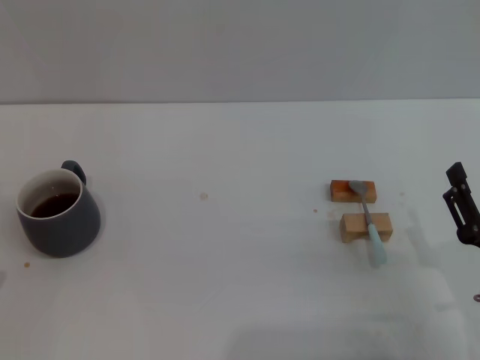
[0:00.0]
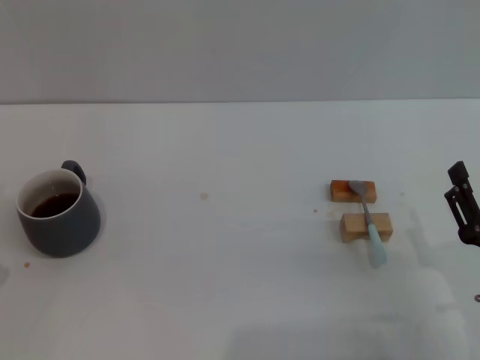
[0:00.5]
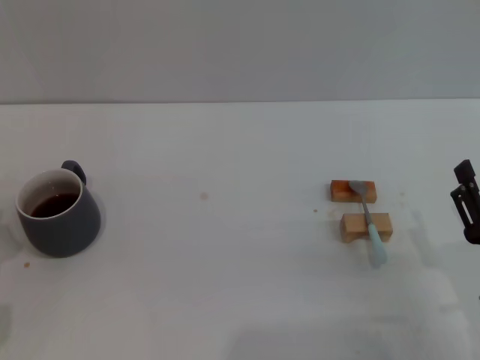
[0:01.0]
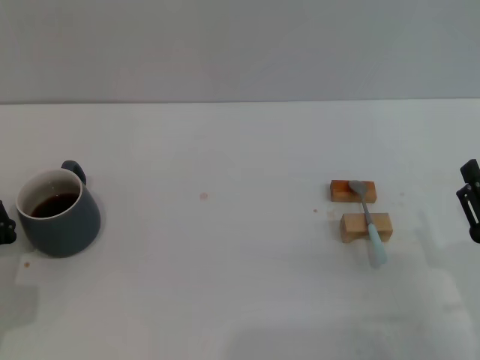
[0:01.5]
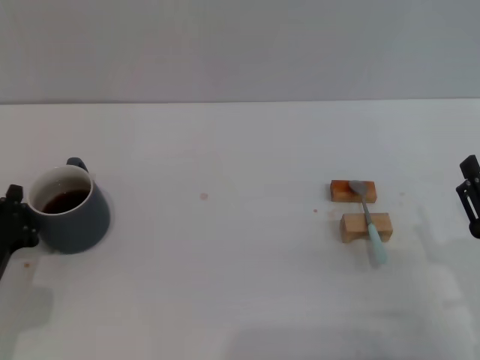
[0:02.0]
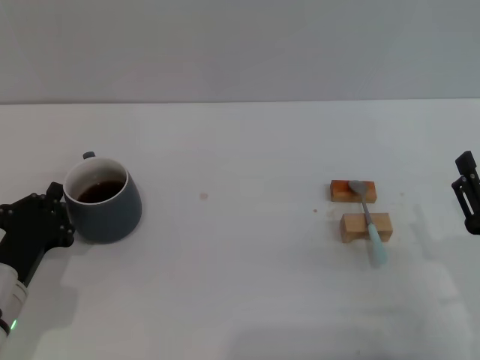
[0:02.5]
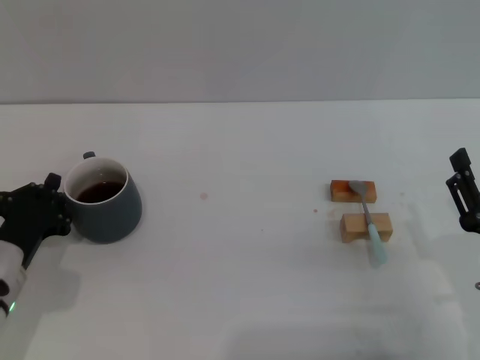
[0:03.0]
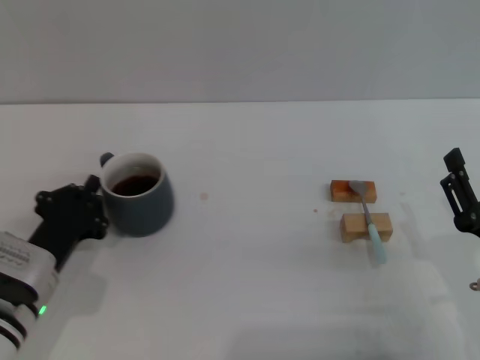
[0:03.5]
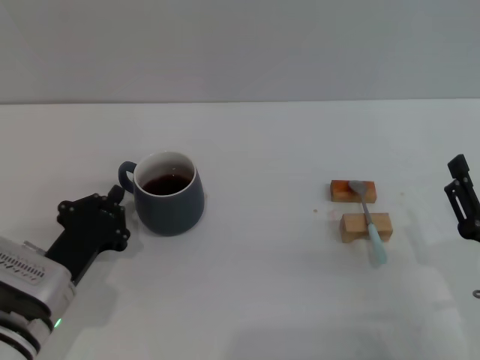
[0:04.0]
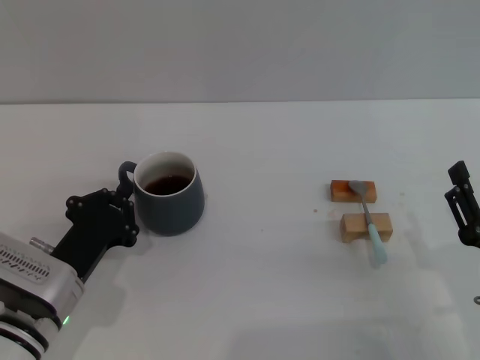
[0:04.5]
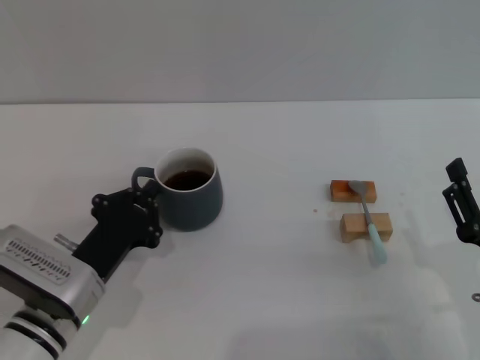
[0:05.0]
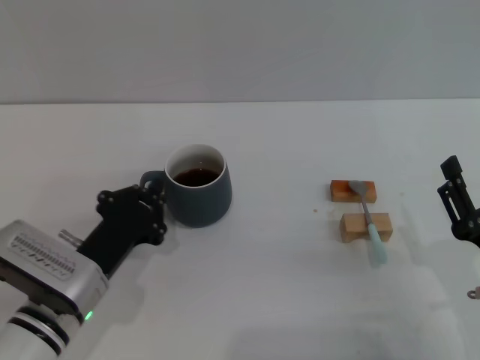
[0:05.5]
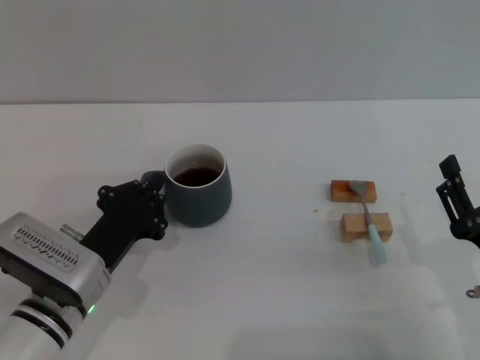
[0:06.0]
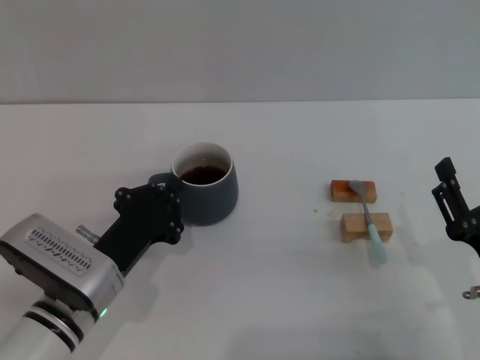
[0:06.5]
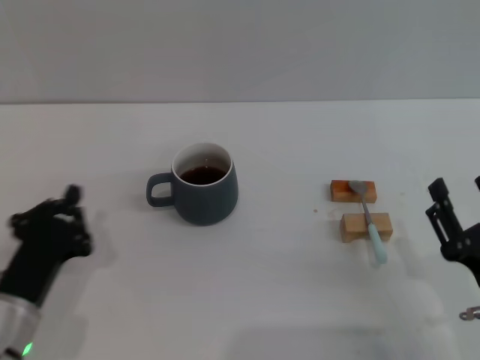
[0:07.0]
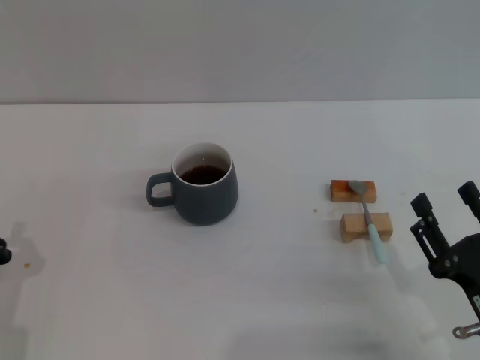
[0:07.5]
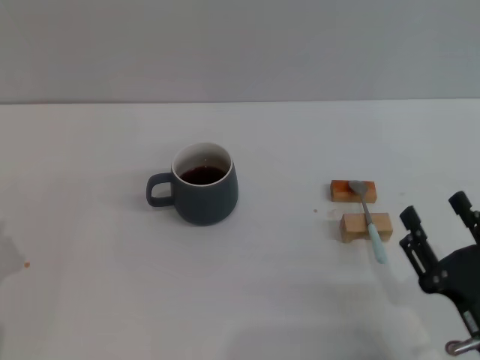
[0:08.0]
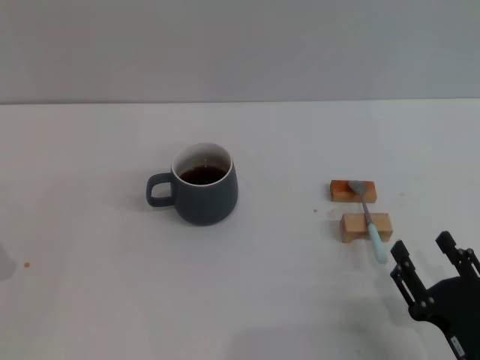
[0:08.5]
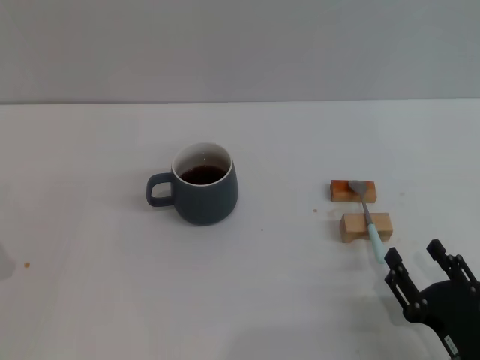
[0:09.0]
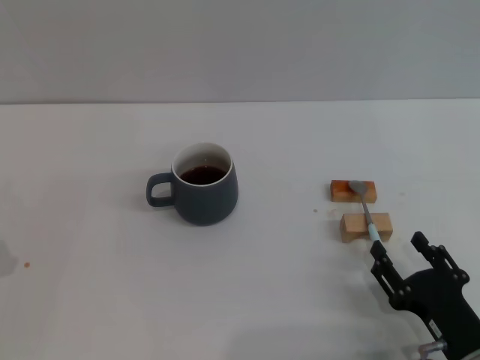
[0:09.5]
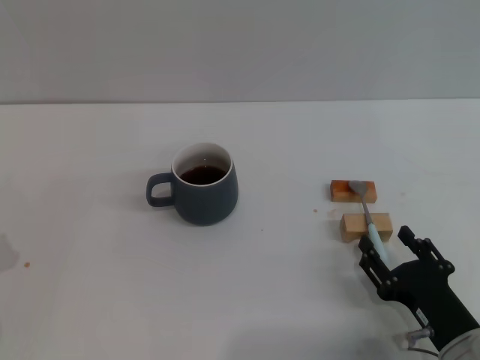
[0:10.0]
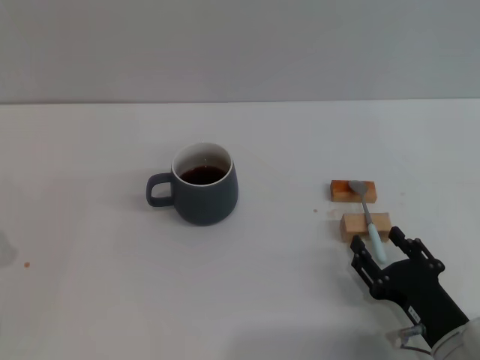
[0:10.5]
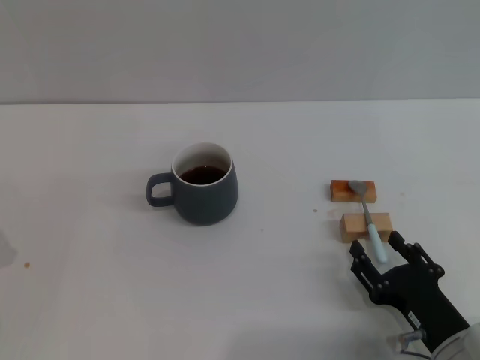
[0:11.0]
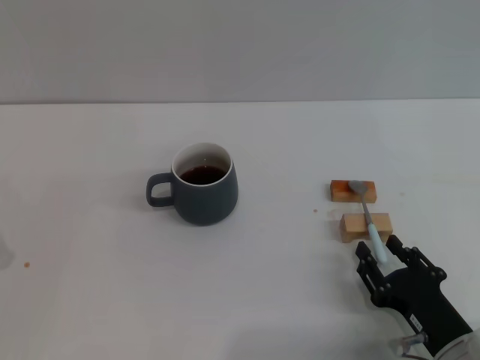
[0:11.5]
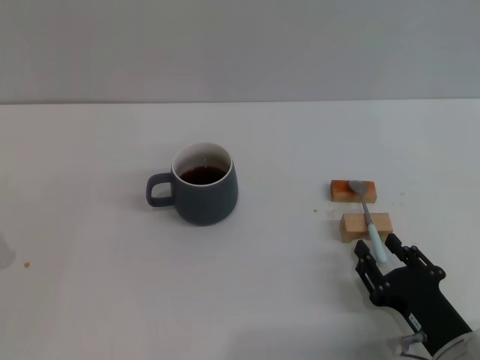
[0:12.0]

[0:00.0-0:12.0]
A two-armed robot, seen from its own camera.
Task of the whole recording: Move the grey cup to the center, lift the blue spoon, stir it three times in the cup, and put the spoon into the cup.
Step, 0:00.0 to 0:07.0: Move the cup with coffee to the center of view with the left gripper.
0:00.0 to 0:02.0: The left gripper shifts about 5 cm forward.
0:02.0 to 0:04.0: The left gripper travels to the right by approximately 5 cm.
0:04.0 to 0:06.0: There are only small adjustments of the grippers.
0:06.0 to 0:08.0: The left gripper is displaced to the left and backward by some 15 cm.
0:10.0 to 0:12.0: Both grippers stay put.

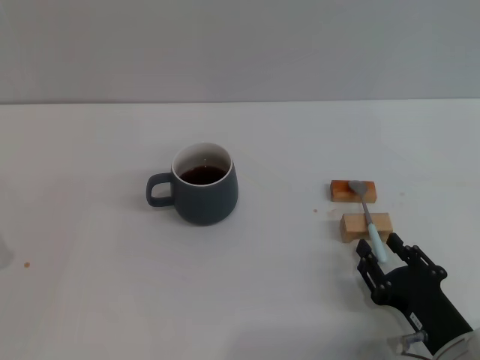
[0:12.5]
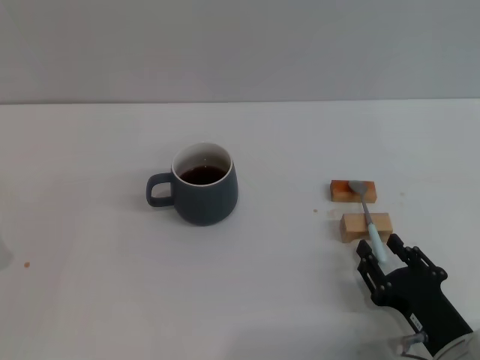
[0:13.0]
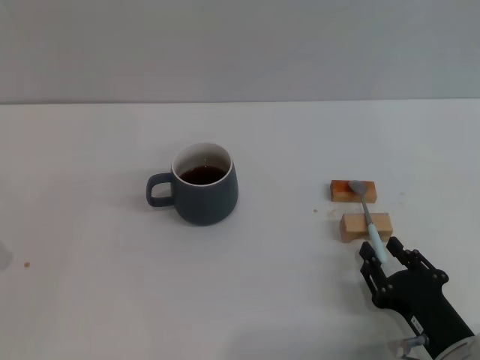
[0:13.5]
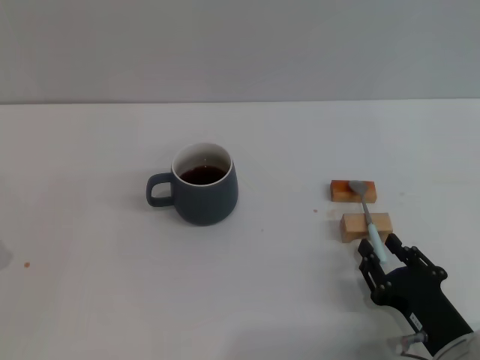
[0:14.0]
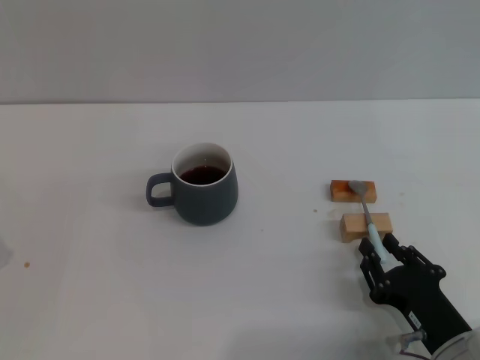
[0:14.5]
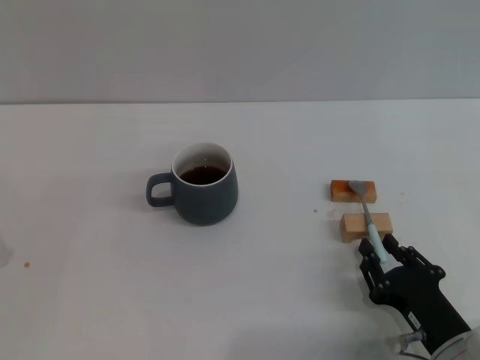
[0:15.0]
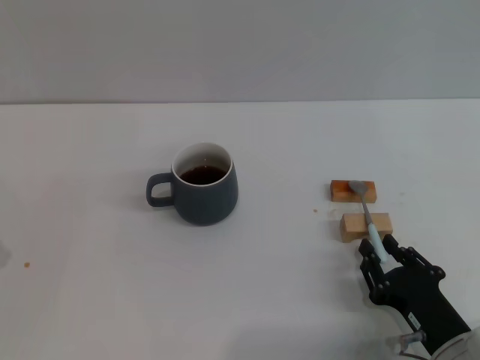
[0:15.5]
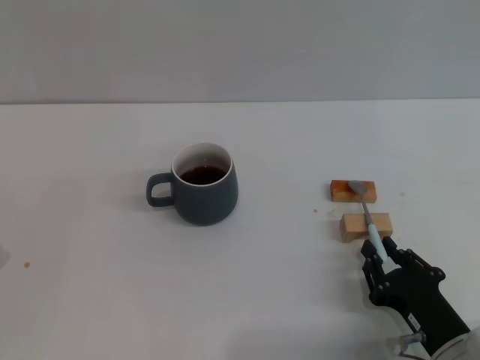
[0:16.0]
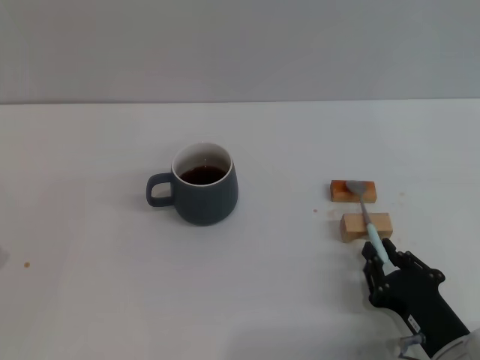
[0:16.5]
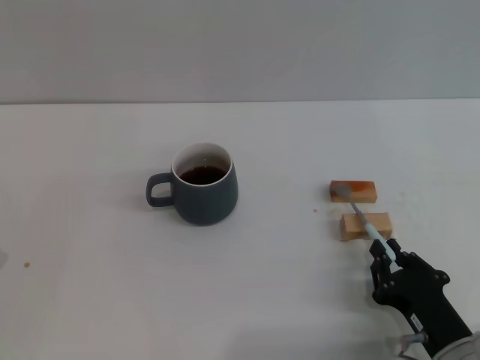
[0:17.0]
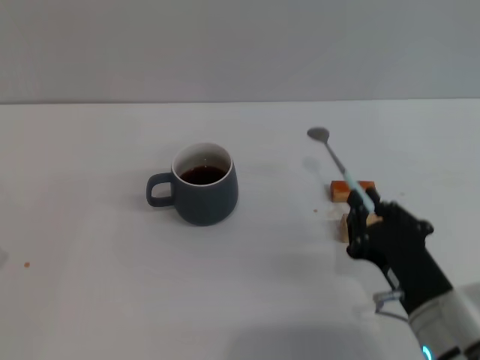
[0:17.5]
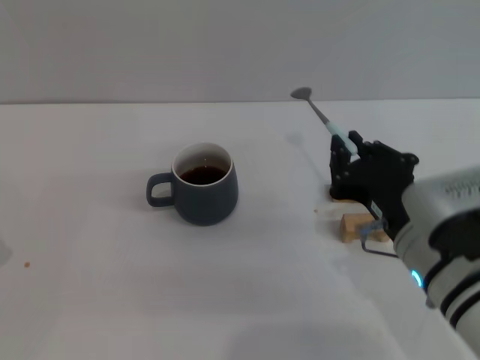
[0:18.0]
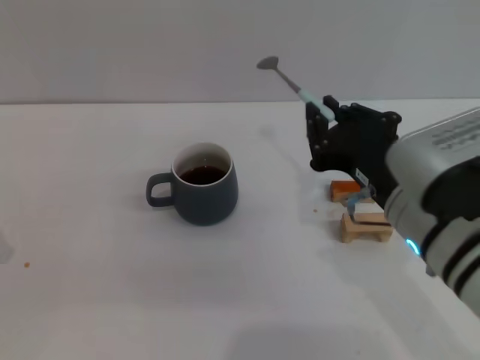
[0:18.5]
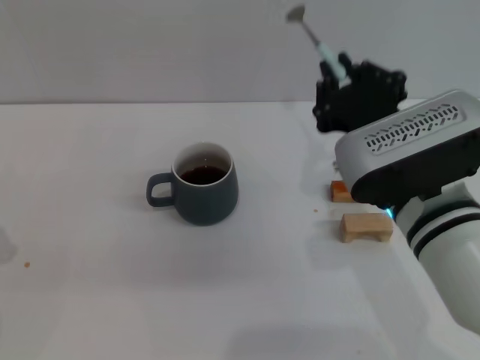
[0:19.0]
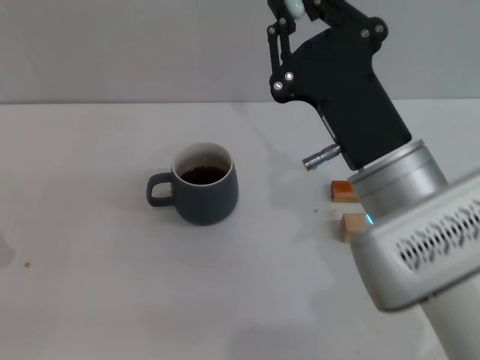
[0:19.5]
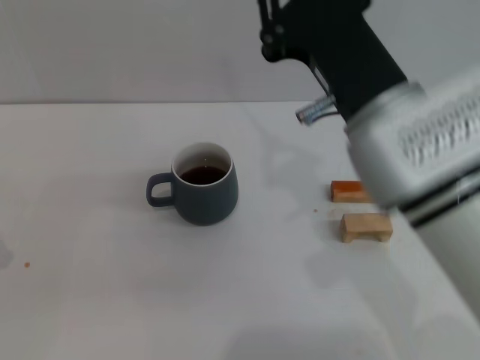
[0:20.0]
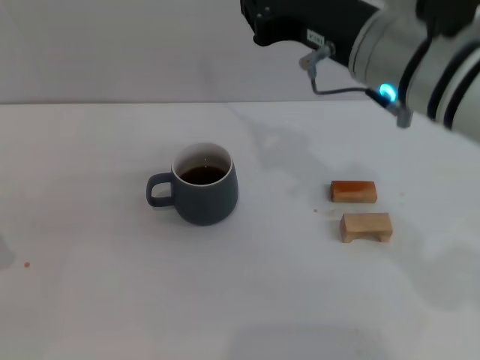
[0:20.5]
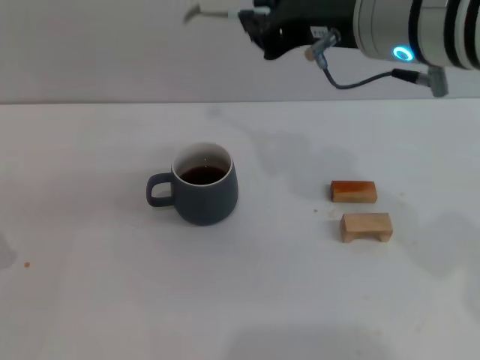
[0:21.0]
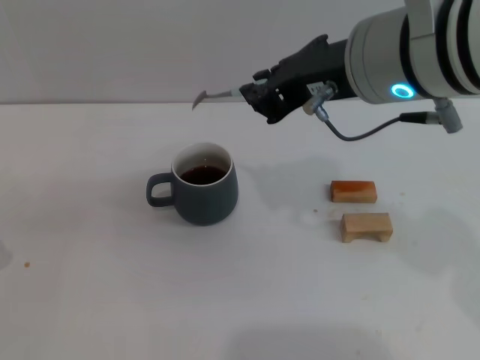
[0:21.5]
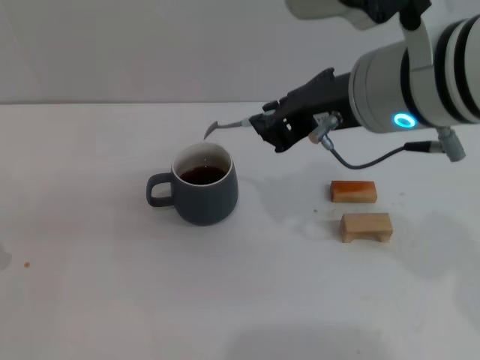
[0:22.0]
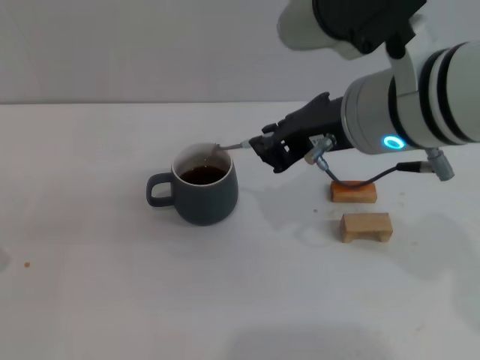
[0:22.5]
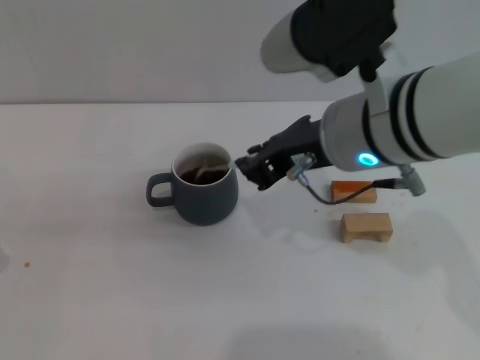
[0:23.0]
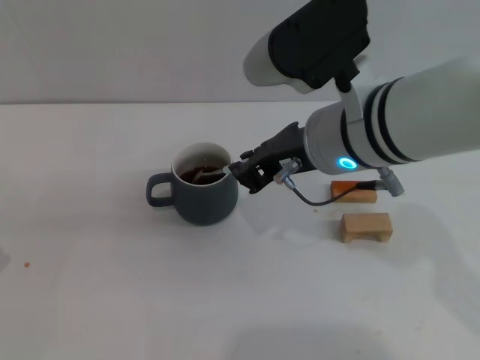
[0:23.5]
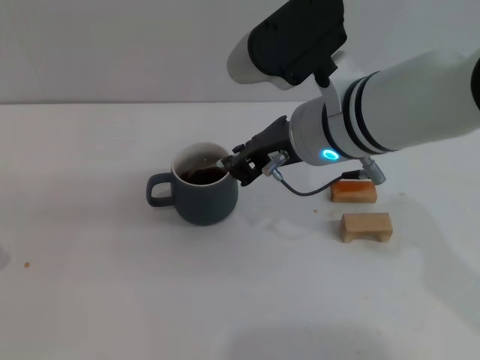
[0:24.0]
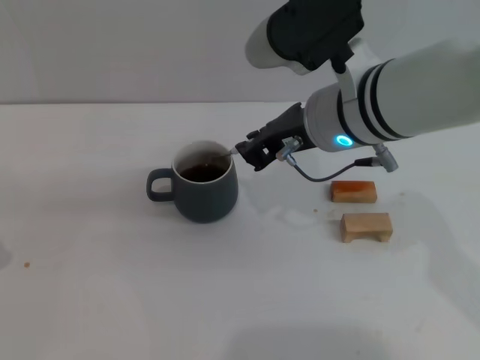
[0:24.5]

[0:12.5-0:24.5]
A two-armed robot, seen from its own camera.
Task of the whole recording: Move the grey cup to the center, lift the blue spoon, stir it three times in the cup, and put the spoon into the cup.
Step, 0:12.5 to 0:18.0: Pick up the spoon with the right gripper.
0:12.5 to 0:16.5: The two grippers keep their place.
0:16.5 to 0:18.5: The right gripper travels upward and to the left by about 20 cm.
0:18.5 to 0:20.5: The right gripper heads upward and forward, covering roughly 10 cm.
0:22.5 to 0:24.5: The right gripper moves some 5 cm.

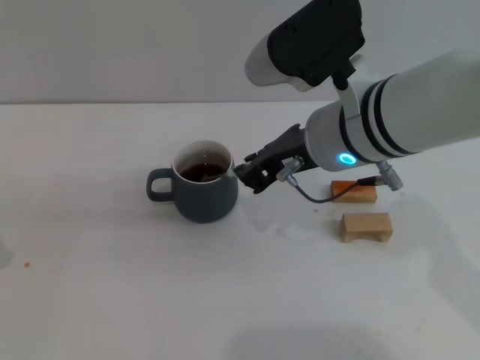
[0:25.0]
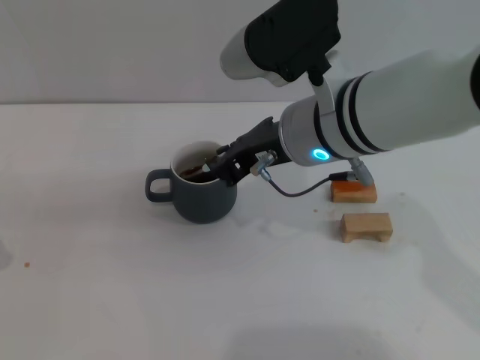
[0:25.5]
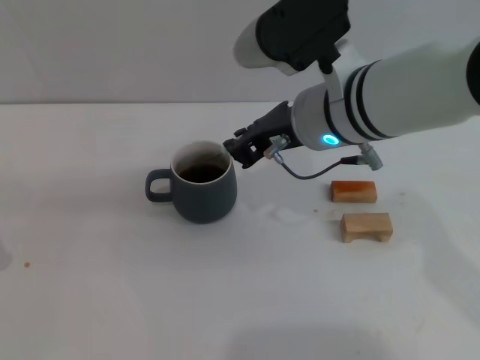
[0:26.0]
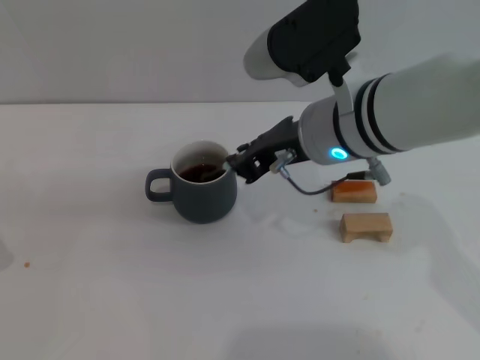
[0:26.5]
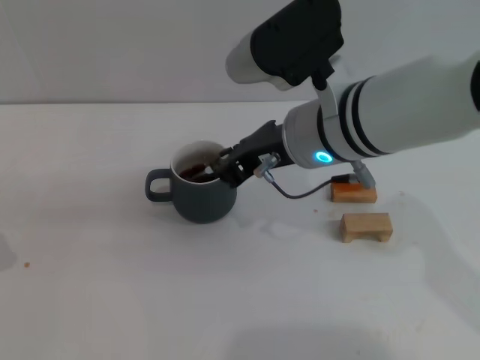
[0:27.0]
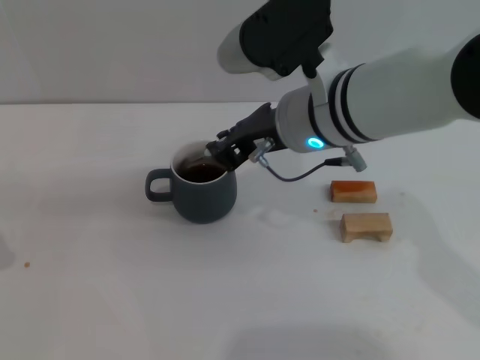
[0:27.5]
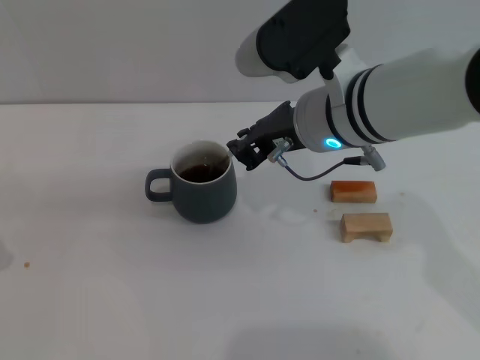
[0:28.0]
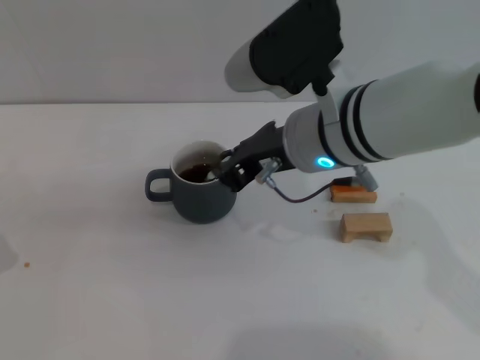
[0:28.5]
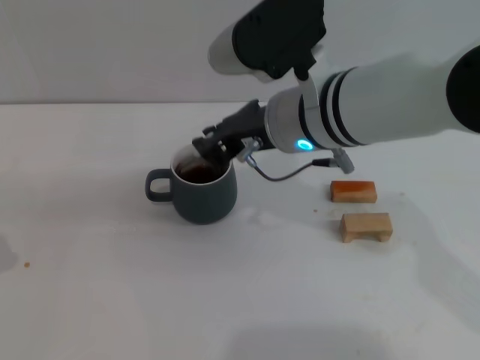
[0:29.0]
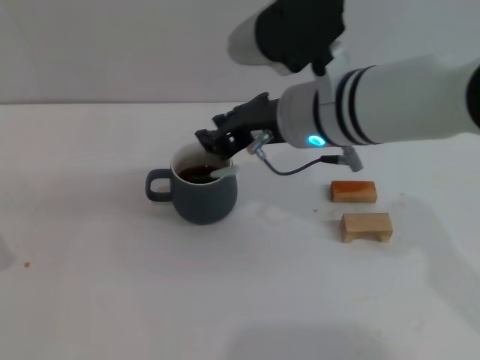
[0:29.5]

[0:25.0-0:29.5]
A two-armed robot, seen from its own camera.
Task of the whole recording: Move the grey cup to the center, lift the blue spoon, stir it three times in the cup, and put the spoon into the cup.
0:25.0 to 0:29.5: The grippers move only a little.
